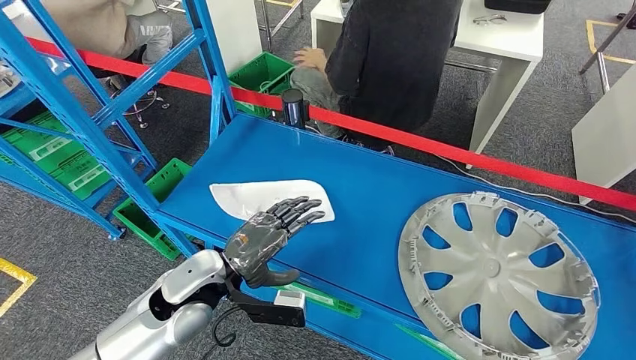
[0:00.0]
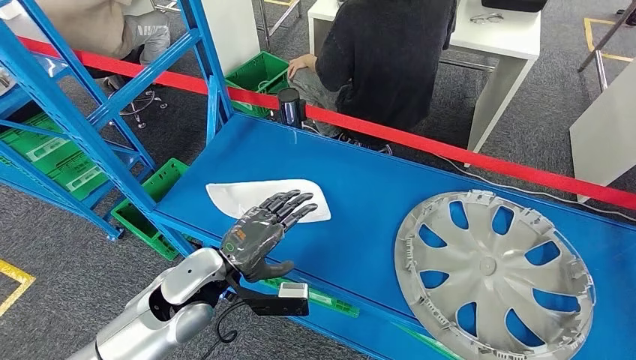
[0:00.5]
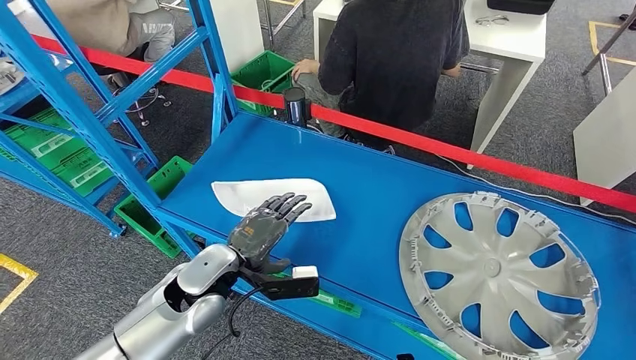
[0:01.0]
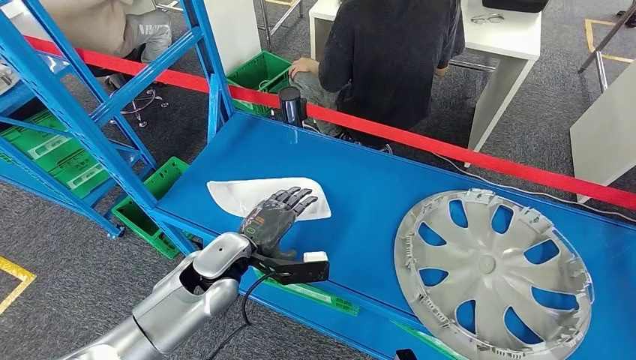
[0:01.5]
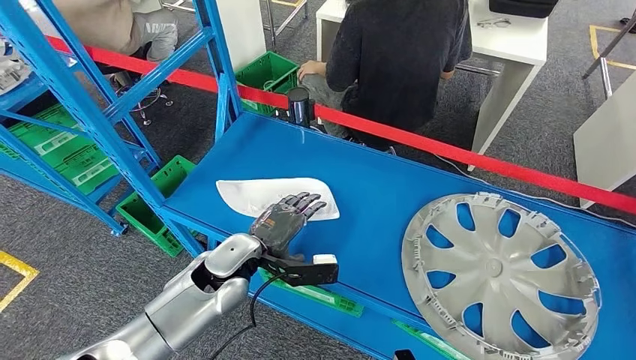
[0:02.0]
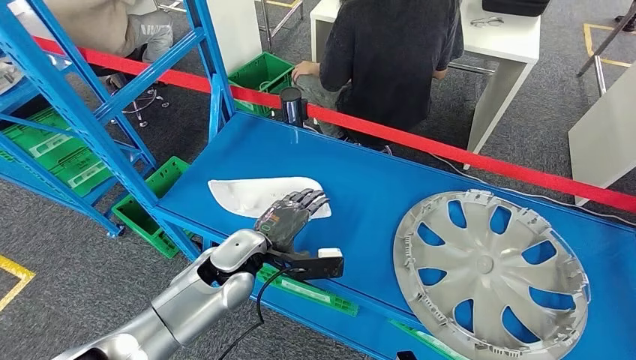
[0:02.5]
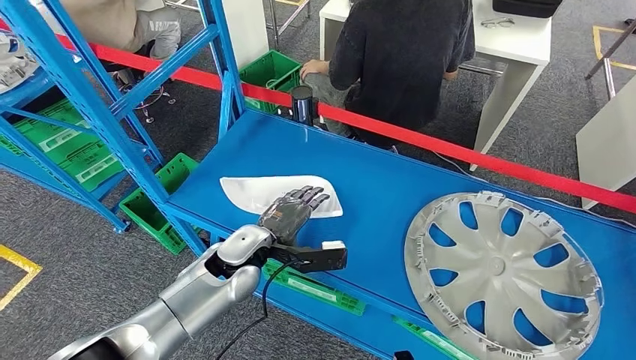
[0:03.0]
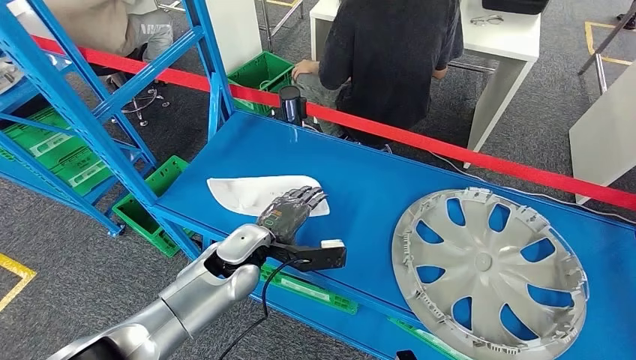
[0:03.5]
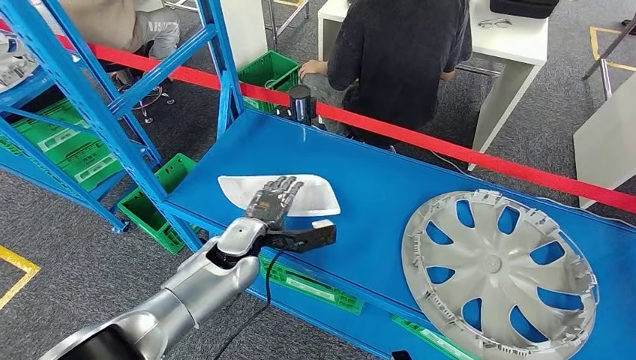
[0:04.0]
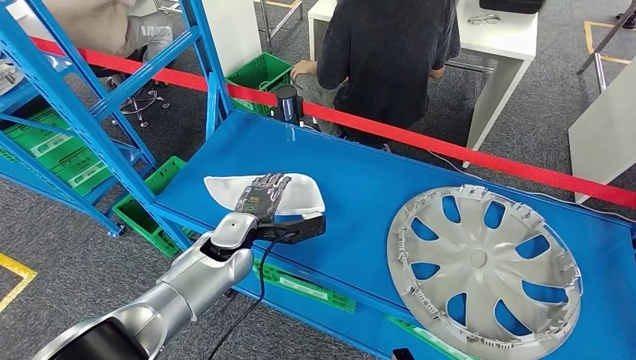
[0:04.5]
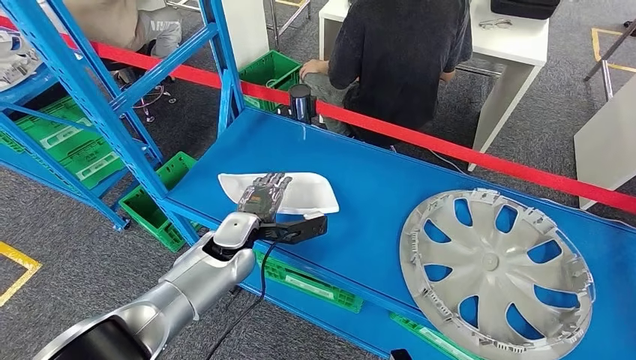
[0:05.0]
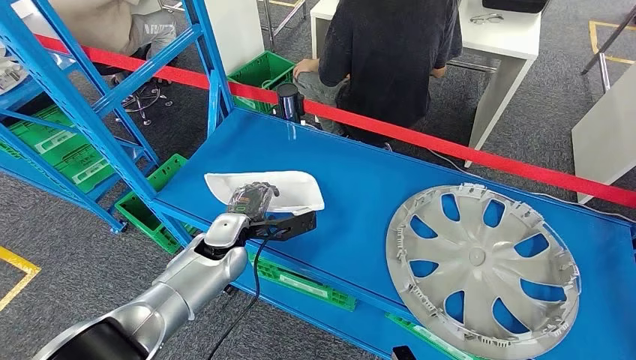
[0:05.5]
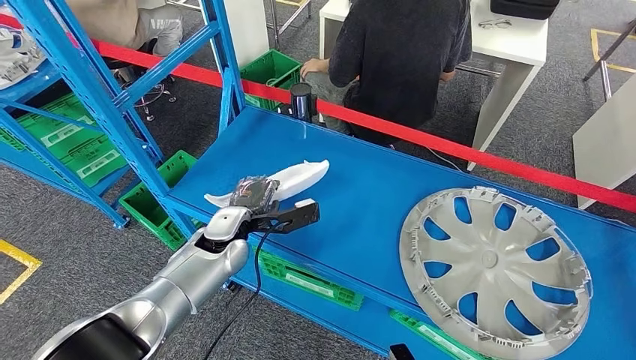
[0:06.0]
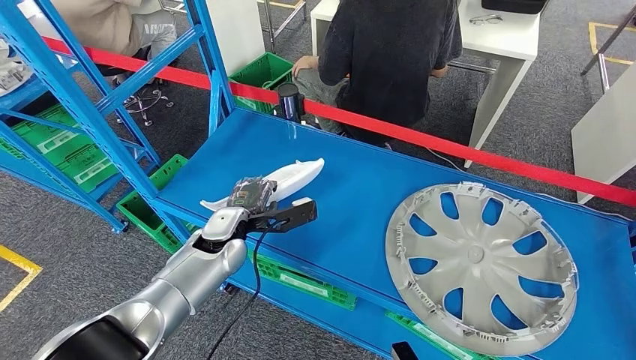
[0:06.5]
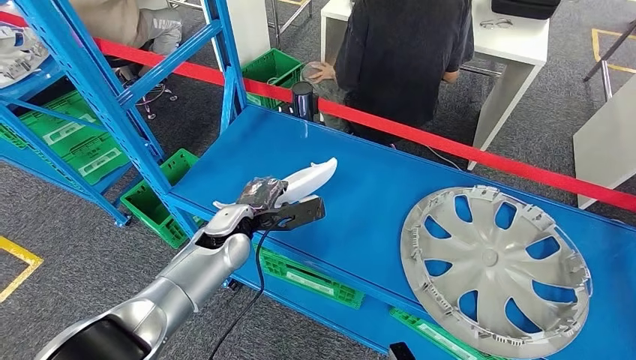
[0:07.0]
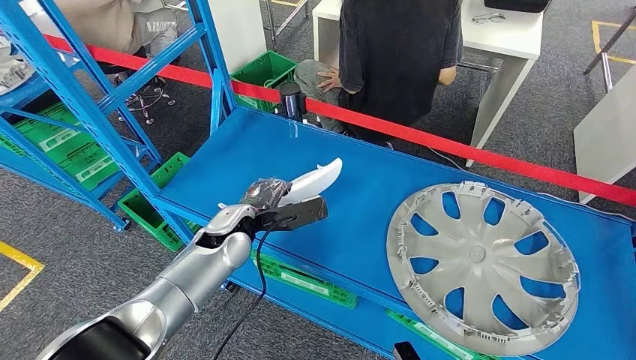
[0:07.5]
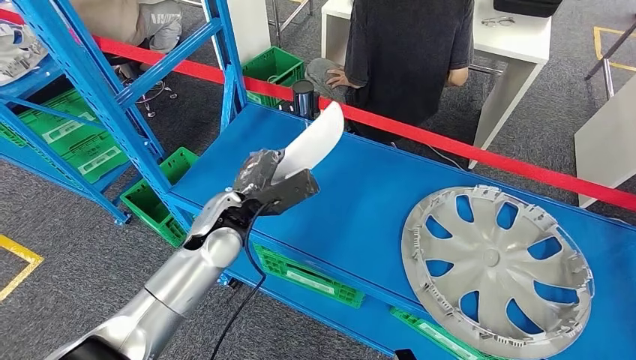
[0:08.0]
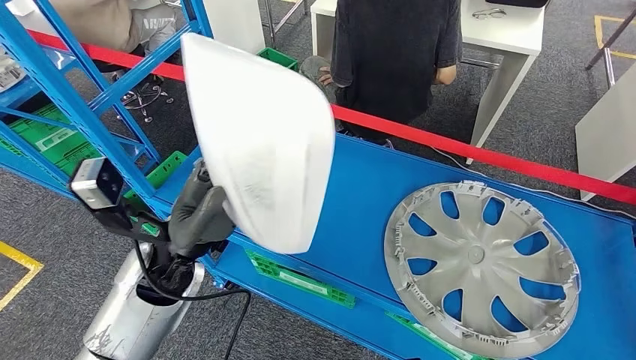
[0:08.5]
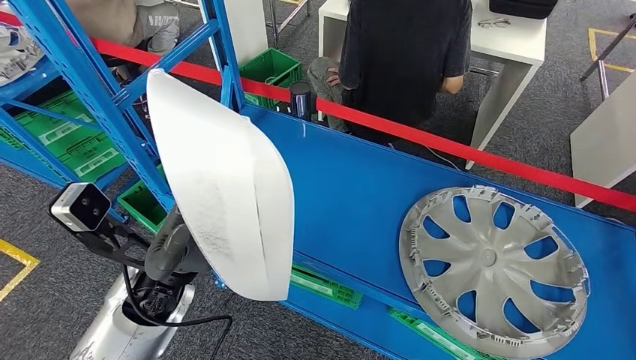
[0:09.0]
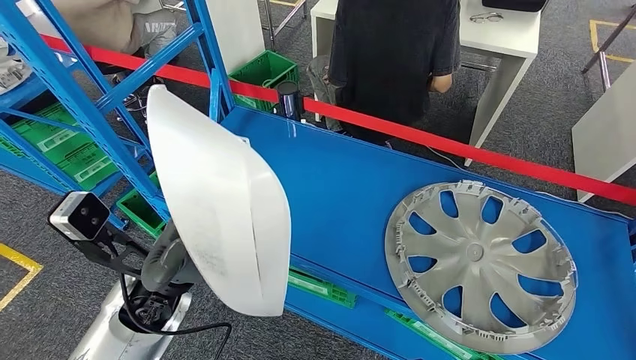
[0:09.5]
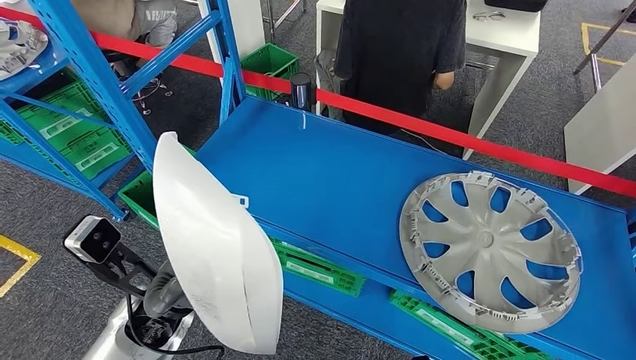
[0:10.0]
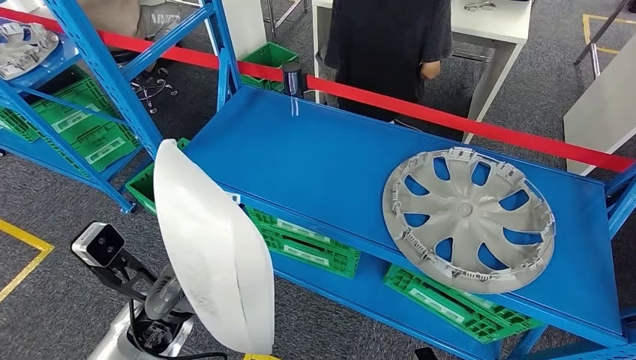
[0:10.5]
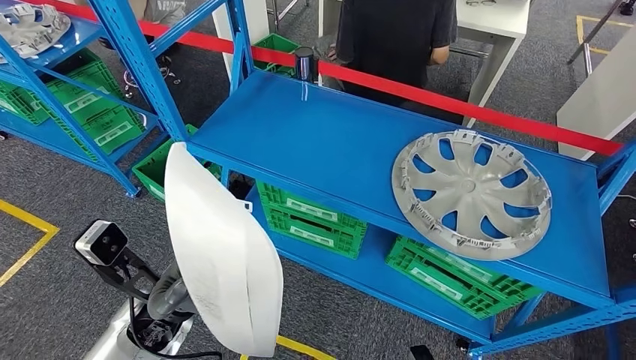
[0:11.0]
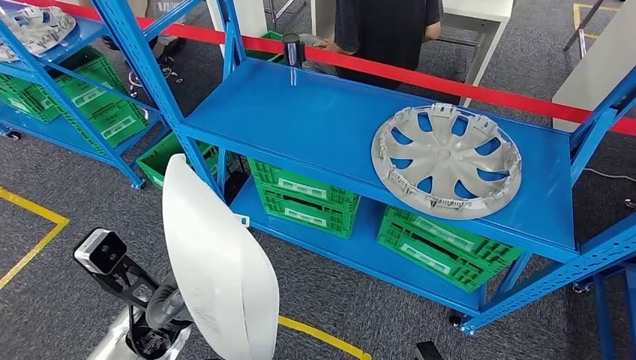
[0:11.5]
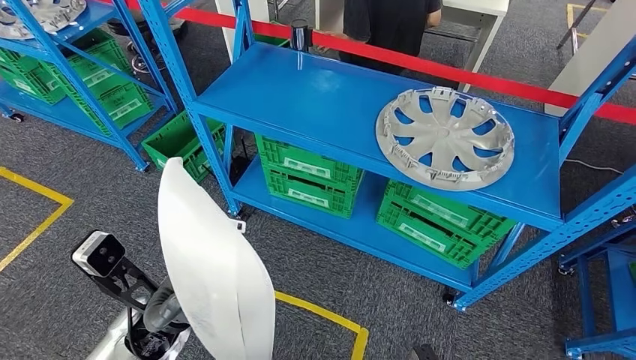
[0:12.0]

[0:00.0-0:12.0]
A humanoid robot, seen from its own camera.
Step, 0:00.0 to 0:08.5: Pick up the small component from the shelf.
0:02.0 to 0:04.0: The hands stay close to where they were, moving slightly.

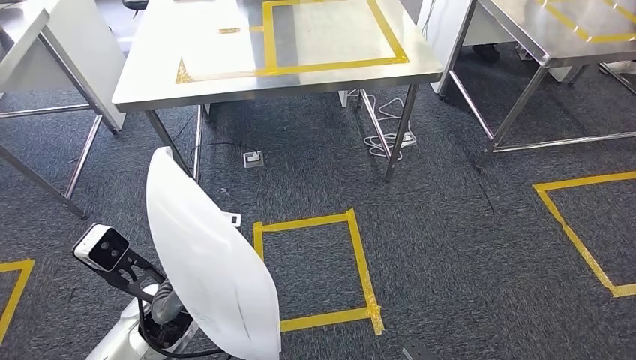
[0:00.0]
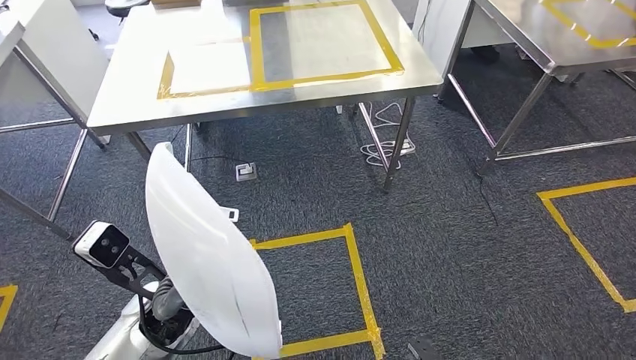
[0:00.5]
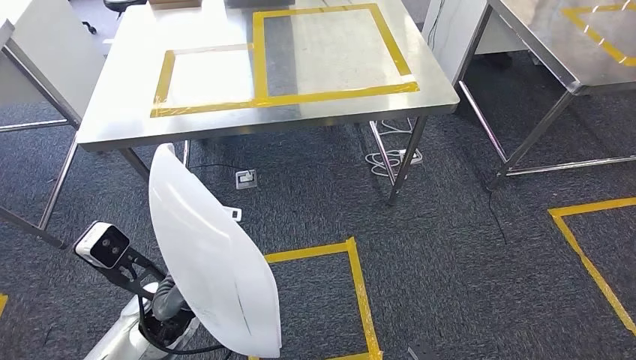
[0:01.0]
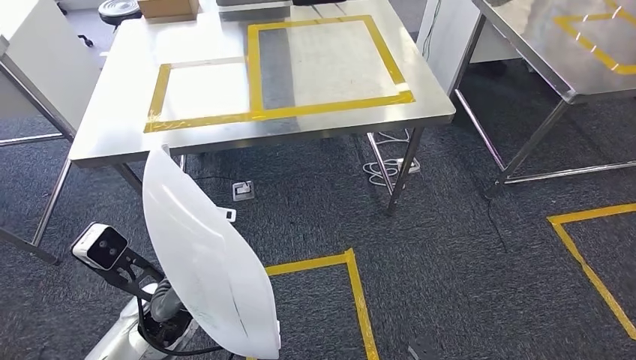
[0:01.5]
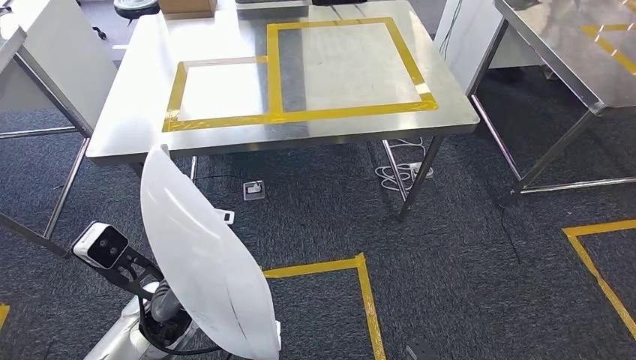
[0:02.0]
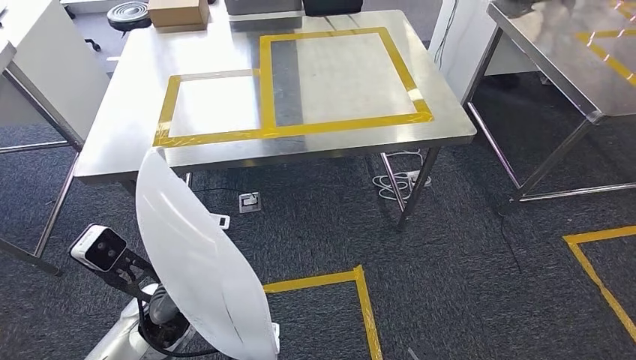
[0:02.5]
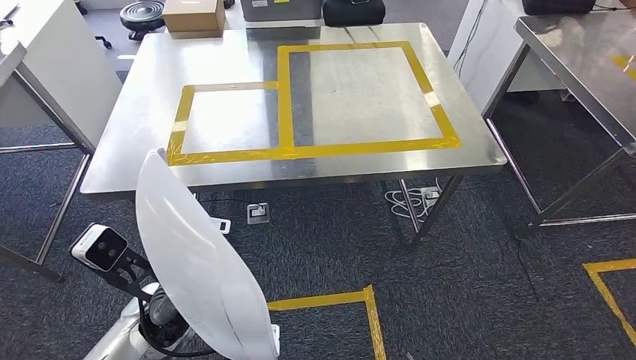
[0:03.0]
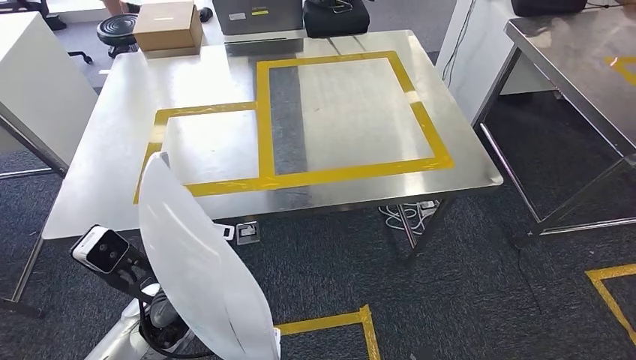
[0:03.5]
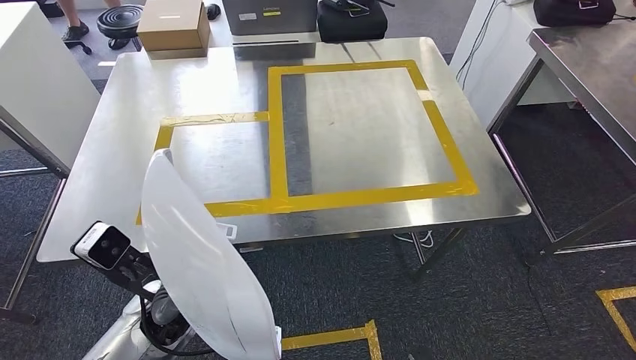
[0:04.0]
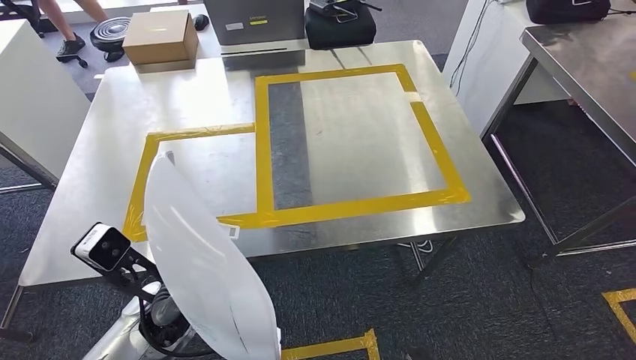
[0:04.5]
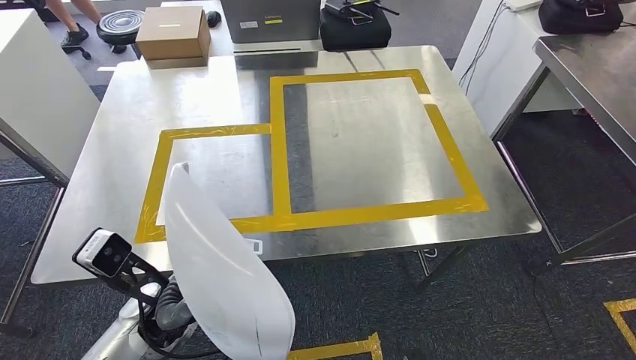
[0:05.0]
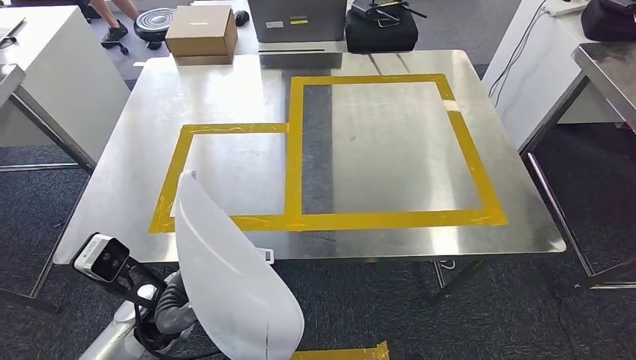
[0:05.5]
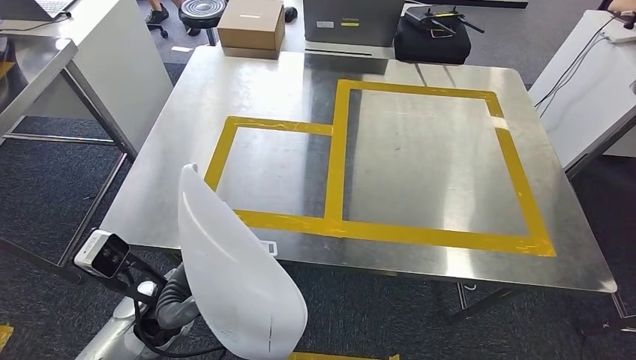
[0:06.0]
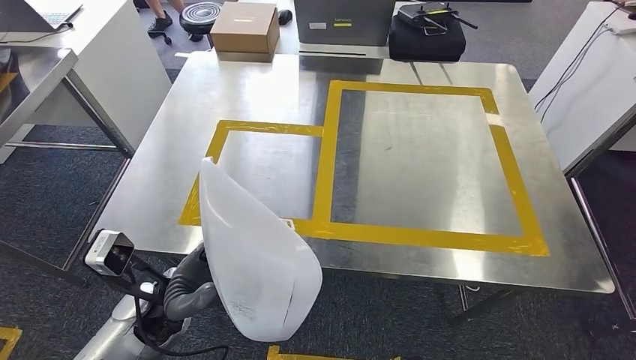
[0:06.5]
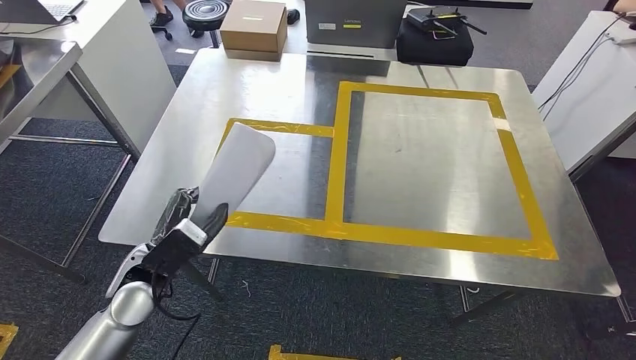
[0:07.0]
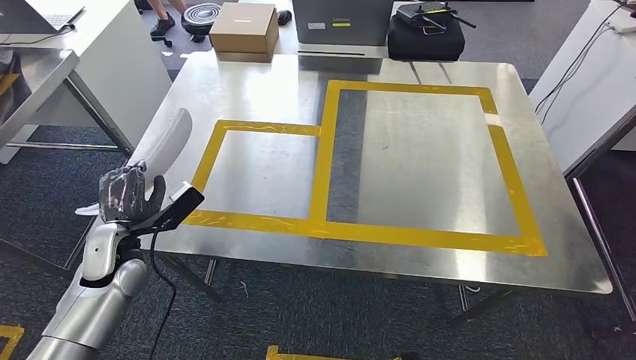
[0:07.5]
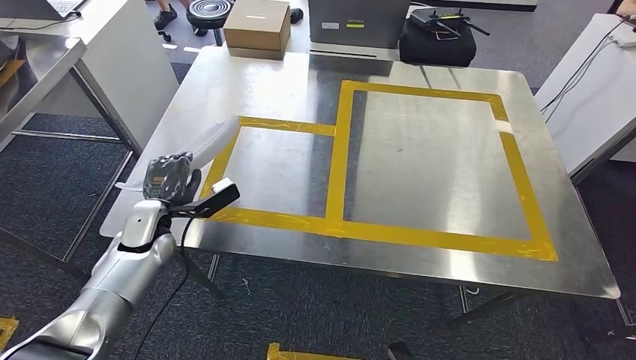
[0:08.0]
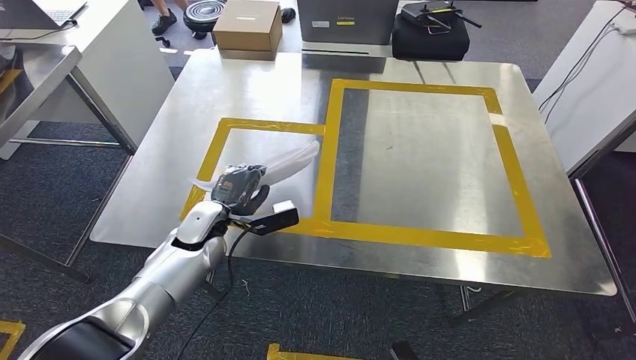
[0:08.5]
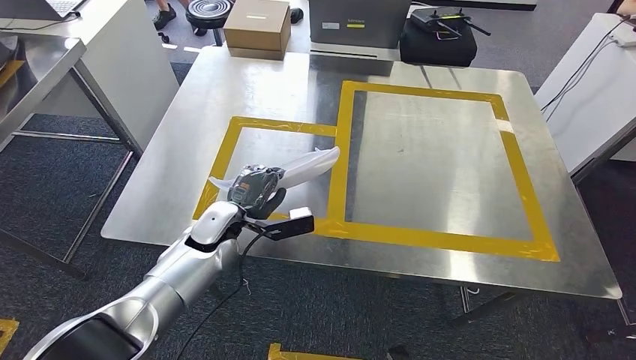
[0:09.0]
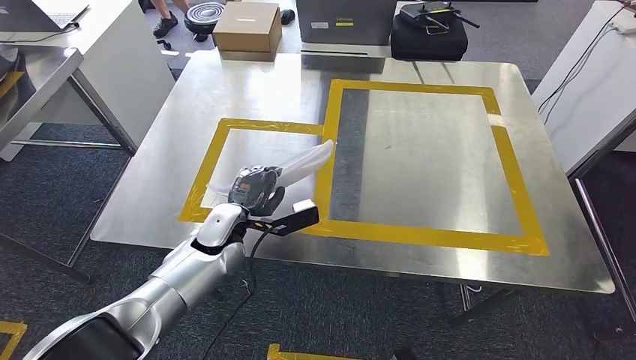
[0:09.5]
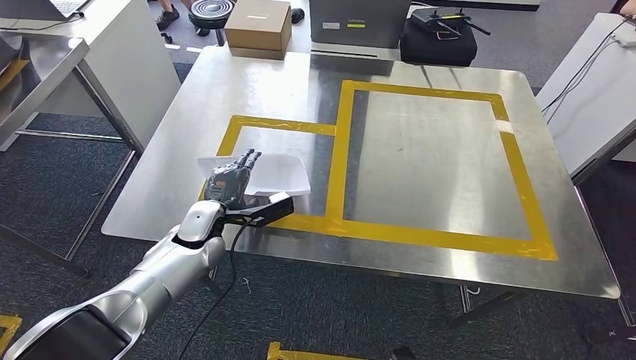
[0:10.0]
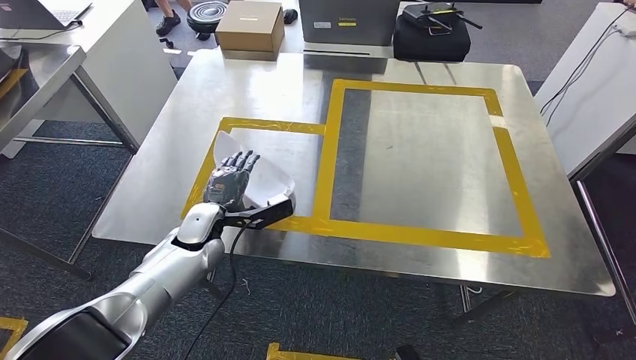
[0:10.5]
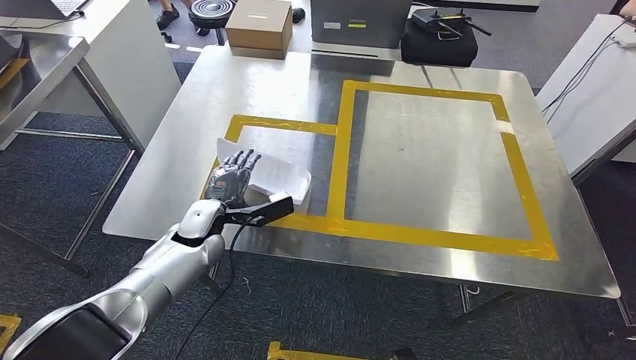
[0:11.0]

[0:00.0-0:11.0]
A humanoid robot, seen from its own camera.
Step, 0:00.0 to 0:02.5: Move the small component to the workbench.
0:09.0 to 0:11.0: The hands make only small movements.
